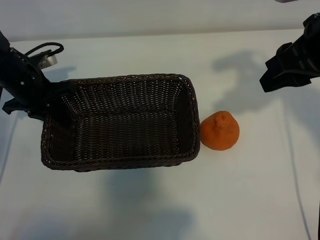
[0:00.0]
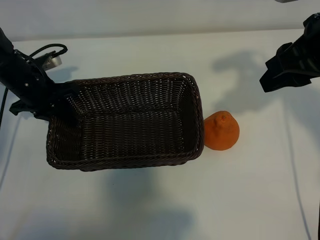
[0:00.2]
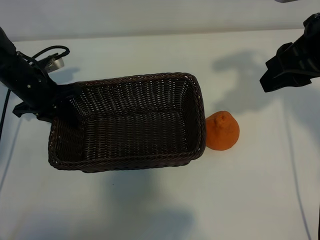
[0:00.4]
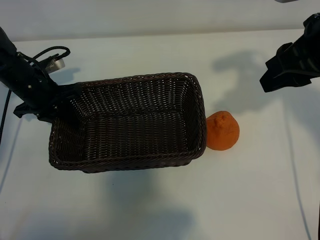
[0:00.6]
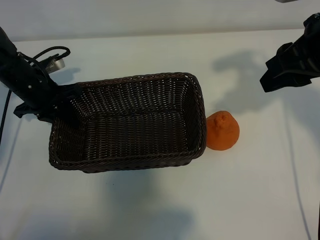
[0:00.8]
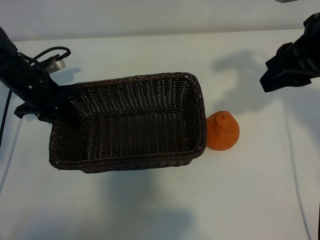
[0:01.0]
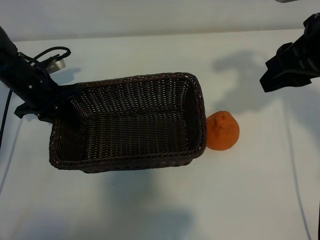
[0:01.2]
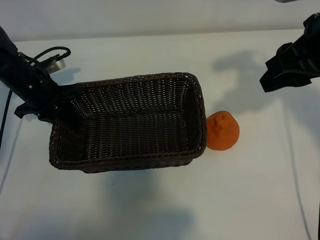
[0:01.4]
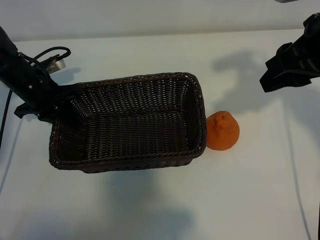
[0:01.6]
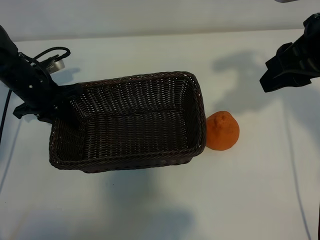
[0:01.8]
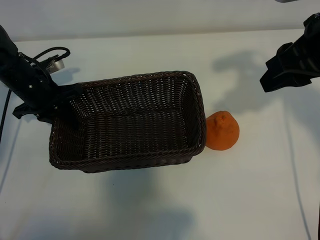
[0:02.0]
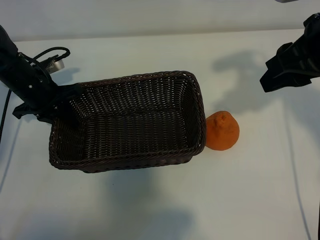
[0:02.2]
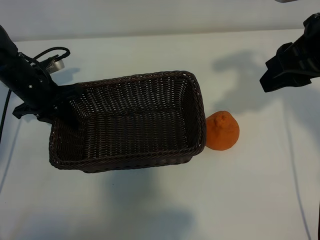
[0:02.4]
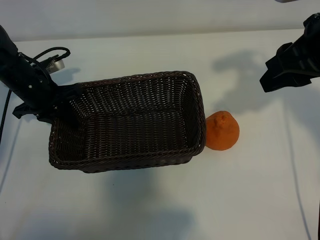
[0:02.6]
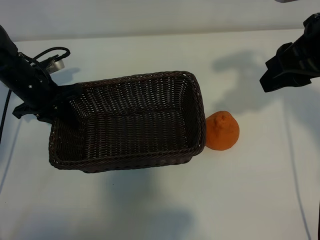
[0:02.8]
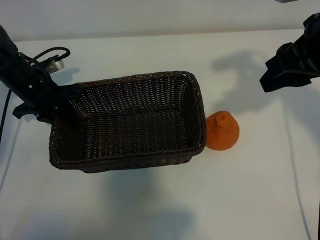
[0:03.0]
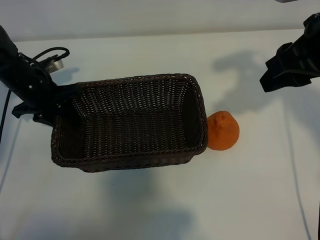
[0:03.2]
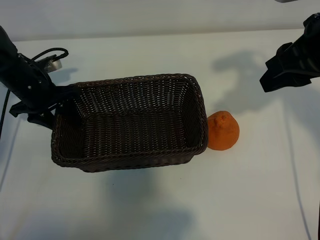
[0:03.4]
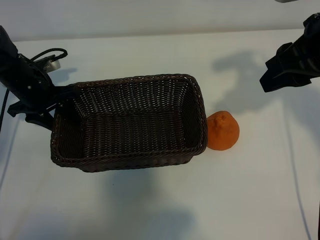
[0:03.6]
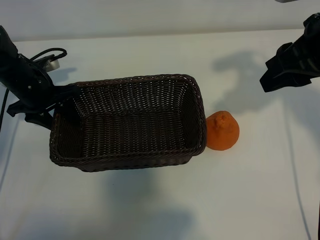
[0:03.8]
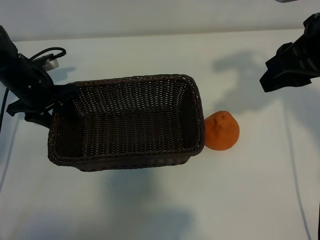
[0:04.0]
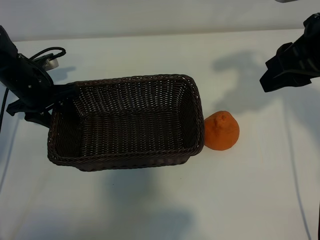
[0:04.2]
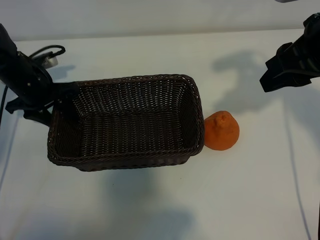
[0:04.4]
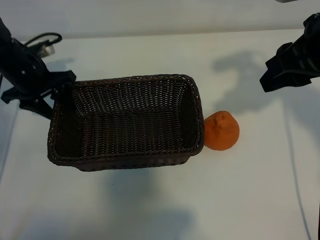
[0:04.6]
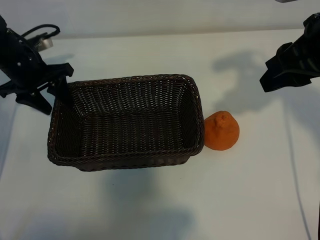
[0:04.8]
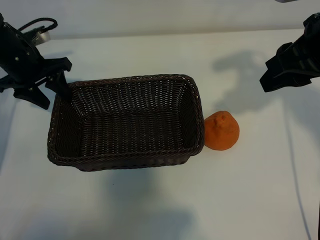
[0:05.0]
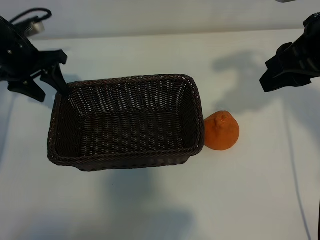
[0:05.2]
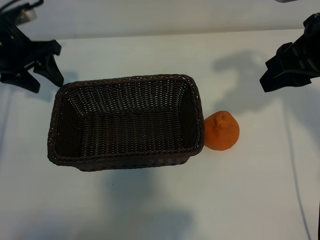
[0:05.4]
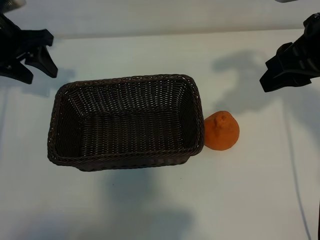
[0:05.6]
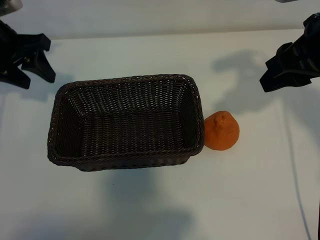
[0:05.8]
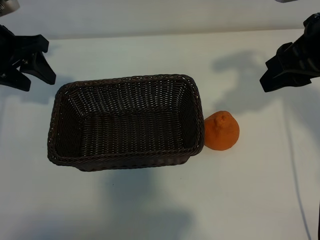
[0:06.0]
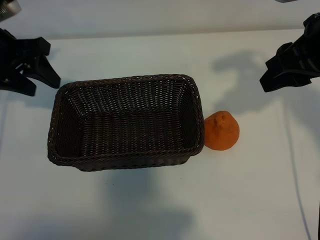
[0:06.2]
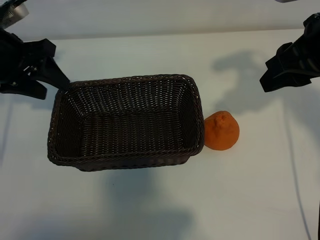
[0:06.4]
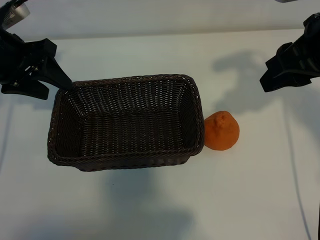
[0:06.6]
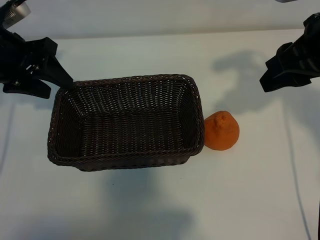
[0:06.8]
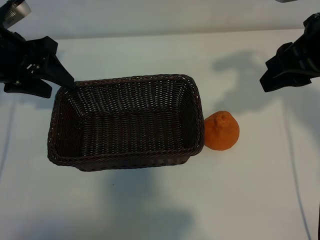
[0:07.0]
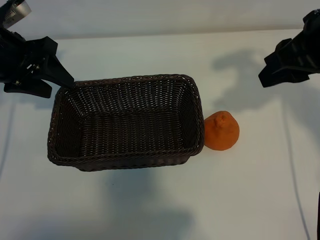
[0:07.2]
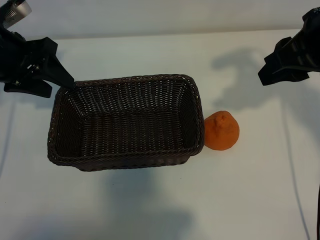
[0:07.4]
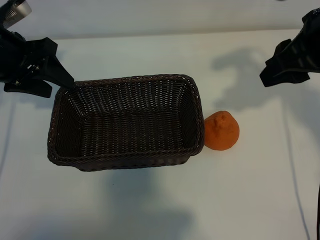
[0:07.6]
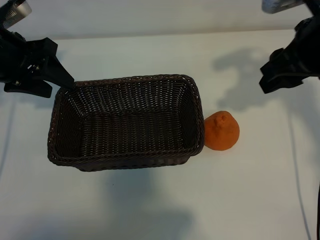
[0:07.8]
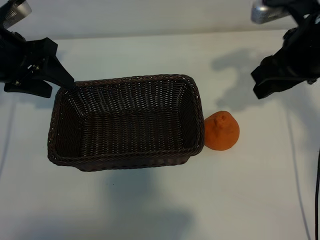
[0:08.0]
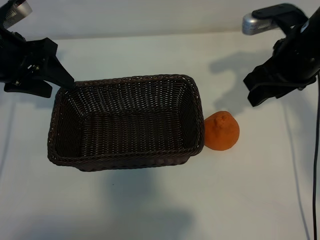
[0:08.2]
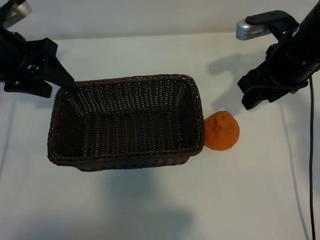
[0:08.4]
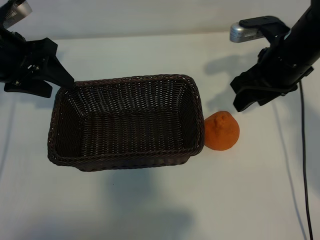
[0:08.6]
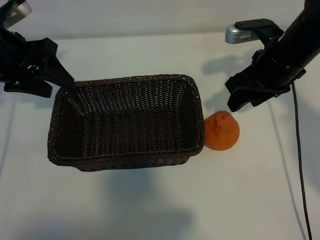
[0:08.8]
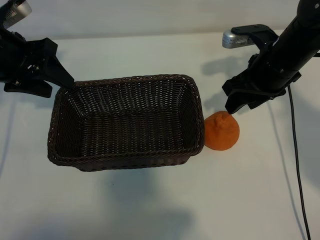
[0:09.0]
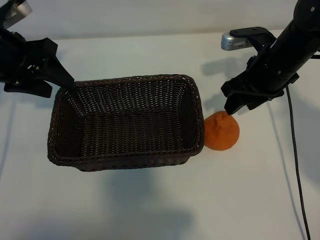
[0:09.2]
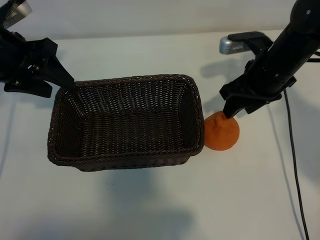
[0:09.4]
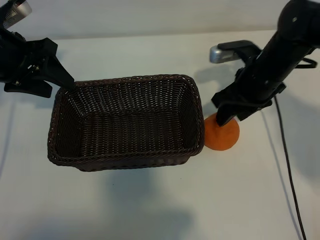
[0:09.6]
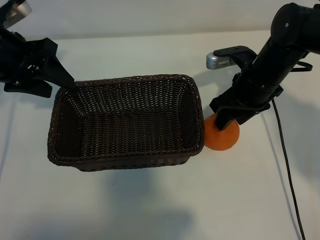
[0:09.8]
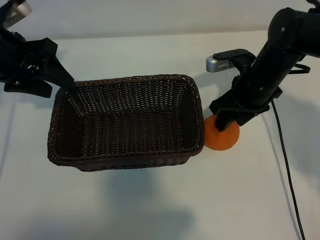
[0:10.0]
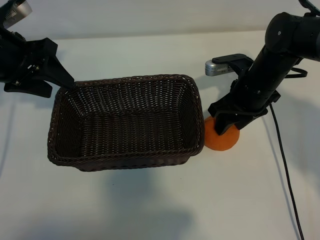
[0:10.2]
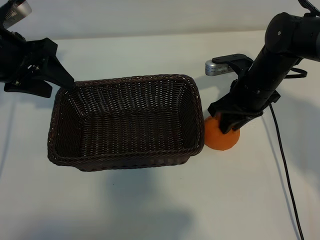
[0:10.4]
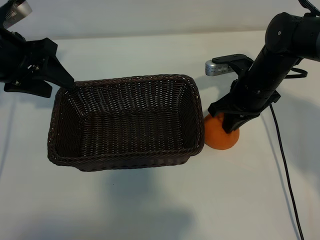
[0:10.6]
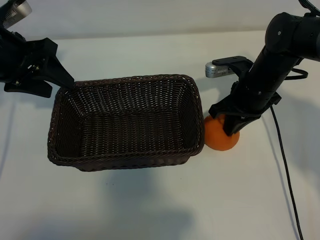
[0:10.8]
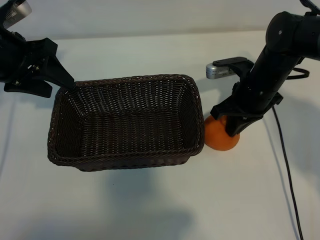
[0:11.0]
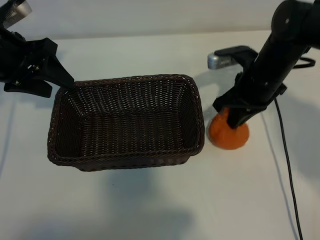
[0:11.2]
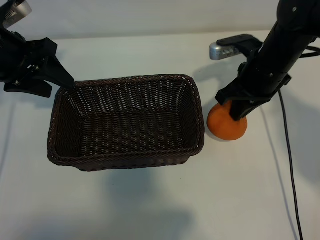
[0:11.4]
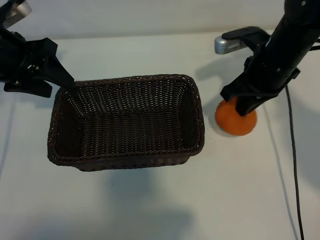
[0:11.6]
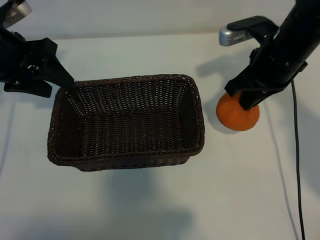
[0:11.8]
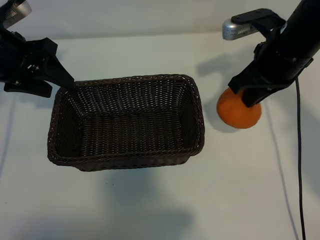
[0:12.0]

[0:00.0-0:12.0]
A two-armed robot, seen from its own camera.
Task of the whole recording: pick up the orange and put it into the basket.
Step, 0:00.0 to 0:03.0: Place the basket in the center of view with left gripper.
Step, 0:03.2 to 0:10.4: Grasp the orange with right gripper.

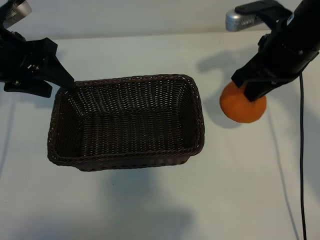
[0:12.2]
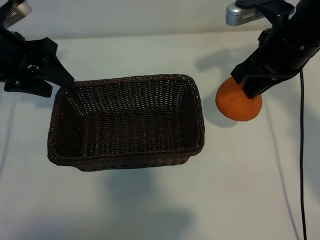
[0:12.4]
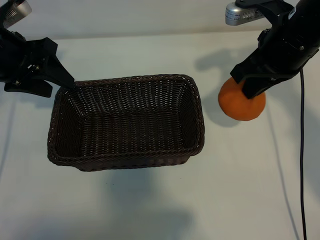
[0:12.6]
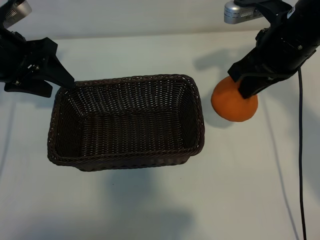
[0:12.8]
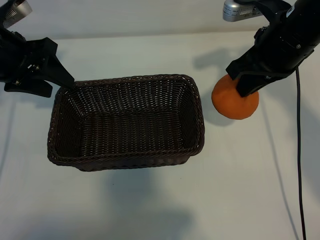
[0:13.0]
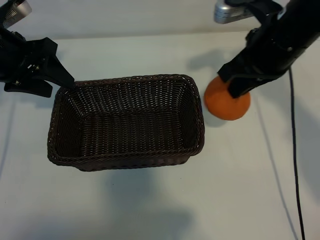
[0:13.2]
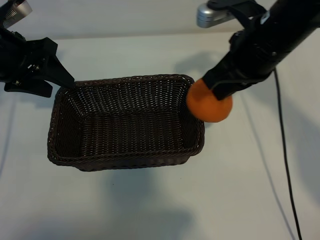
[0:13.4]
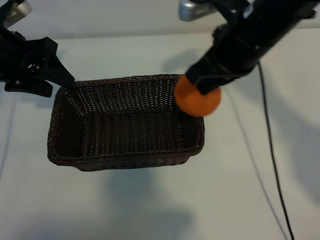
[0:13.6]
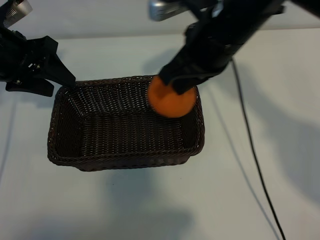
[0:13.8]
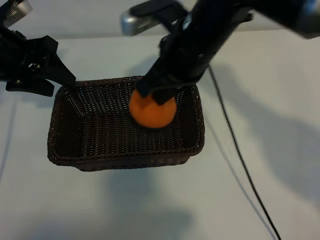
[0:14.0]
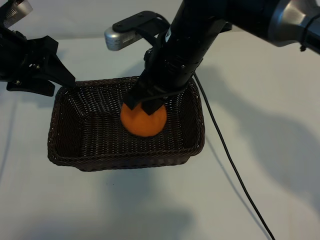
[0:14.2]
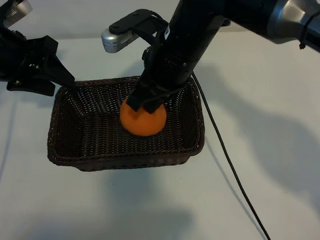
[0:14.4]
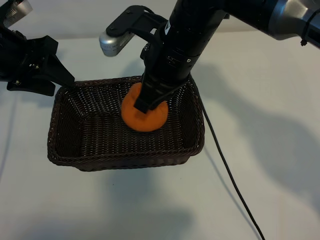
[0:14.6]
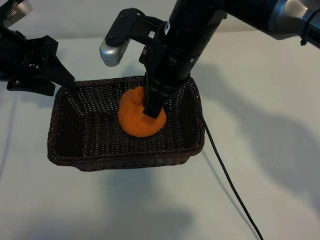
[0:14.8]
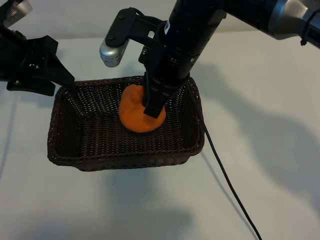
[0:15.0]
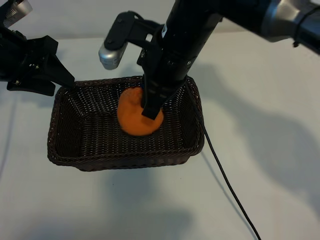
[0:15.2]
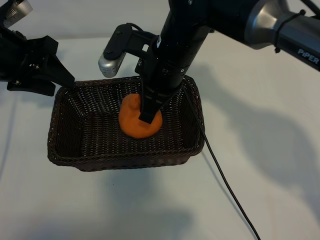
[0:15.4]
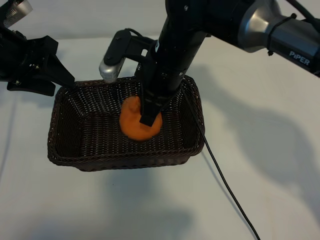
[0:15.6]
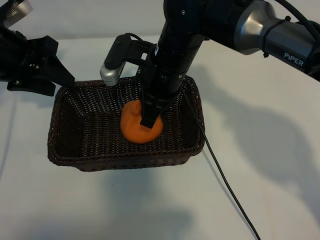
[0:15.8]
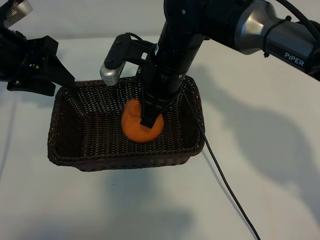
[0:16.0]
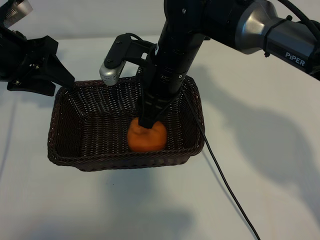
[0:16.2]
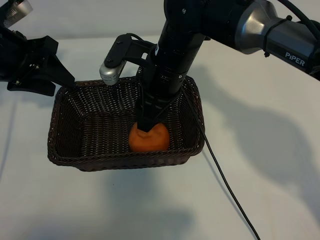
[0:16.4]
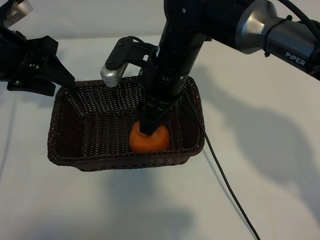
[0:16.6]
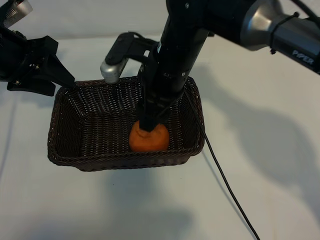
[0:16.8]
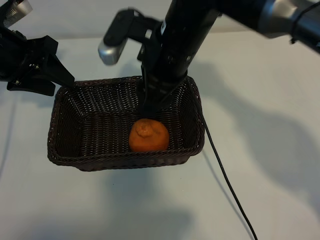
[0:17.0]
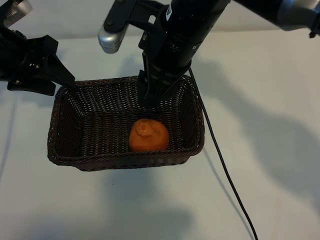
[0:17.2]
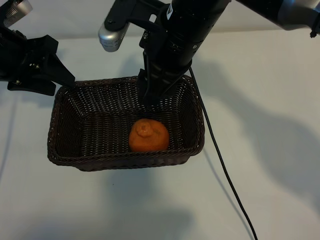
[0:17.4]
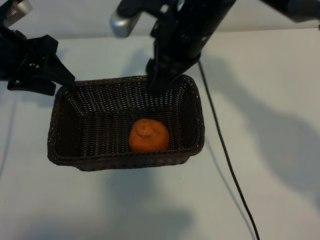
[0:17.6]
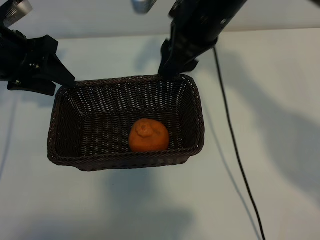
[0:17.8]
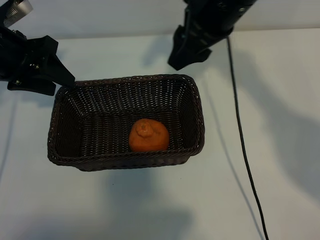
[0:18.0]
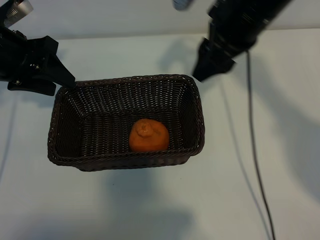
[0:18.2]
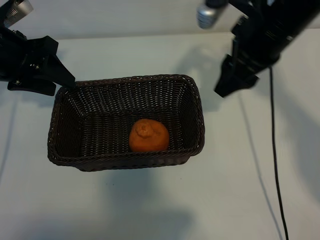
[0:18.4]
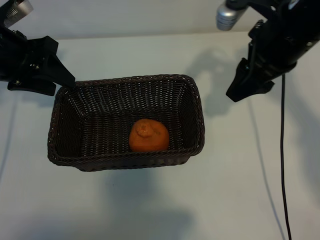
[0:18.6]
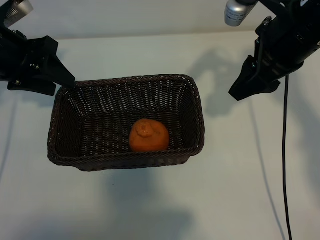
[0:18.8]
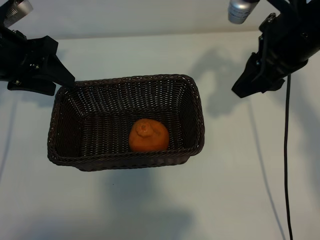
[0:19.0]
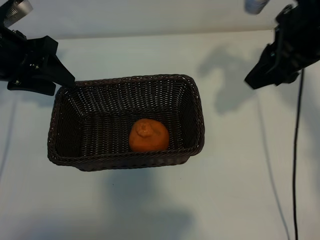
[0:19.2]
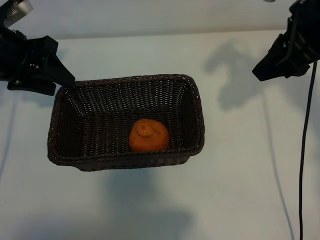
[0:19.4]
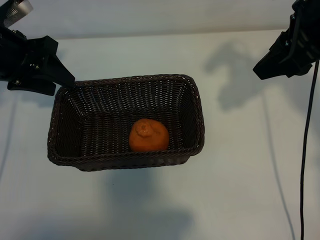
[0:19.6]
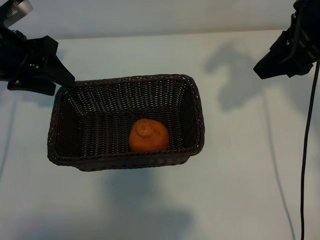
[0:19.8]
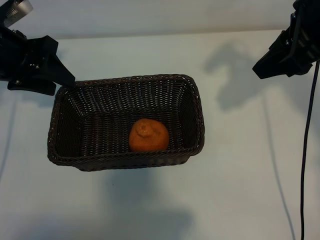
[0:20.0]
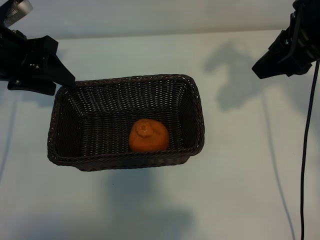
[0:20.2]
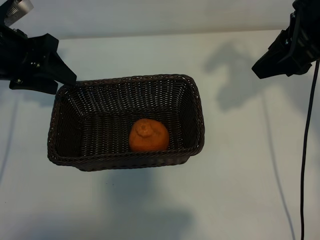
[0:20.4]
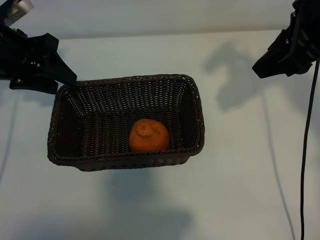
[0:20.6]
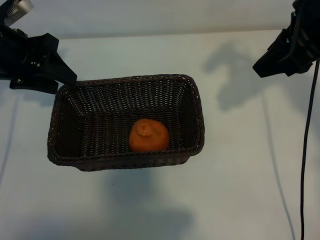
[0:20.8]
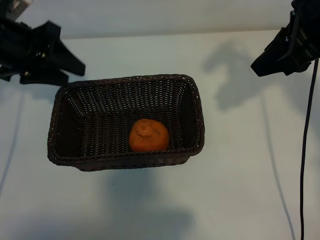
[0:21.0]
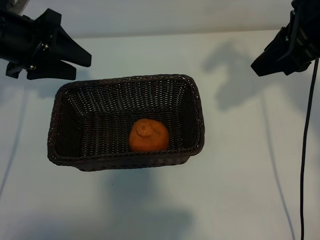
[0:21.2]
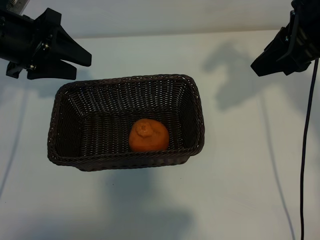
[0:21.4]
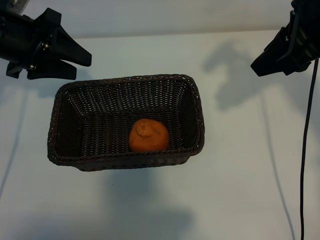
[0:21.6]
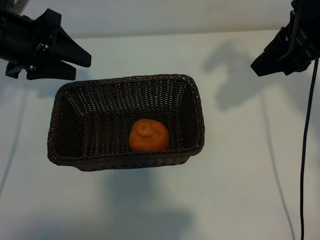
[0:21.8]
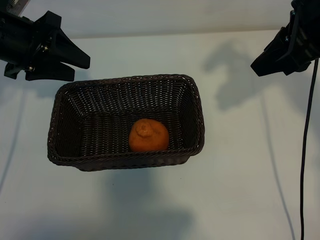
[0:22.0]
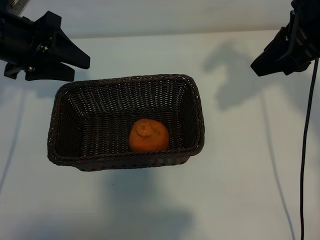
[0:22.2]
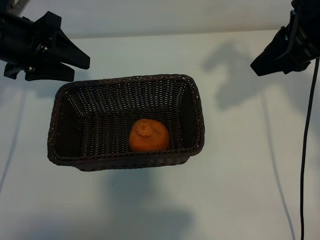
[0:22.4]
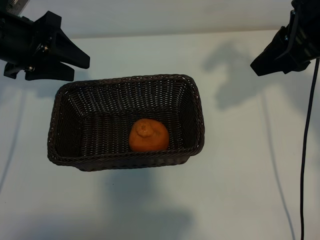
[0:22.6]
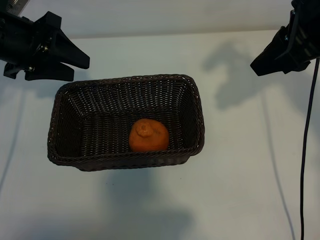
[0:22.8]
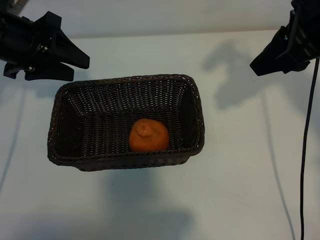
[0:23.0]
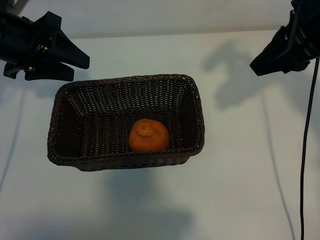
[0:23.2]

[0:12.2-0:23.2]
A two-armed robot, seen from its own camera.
Task of the whole recording: pick up the orange and put it into the basket.
Step, 0:12.2 to 0:16.2: Place the orange in the basket with right gripper.
